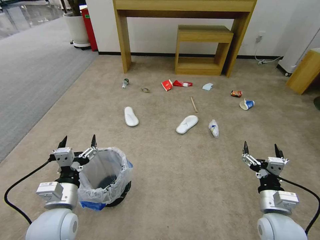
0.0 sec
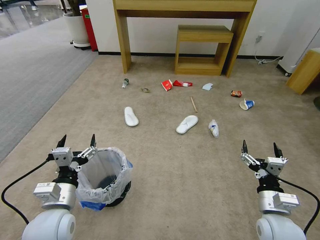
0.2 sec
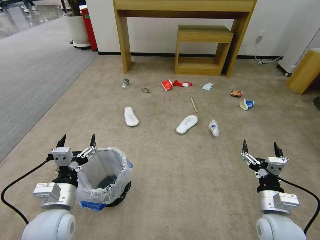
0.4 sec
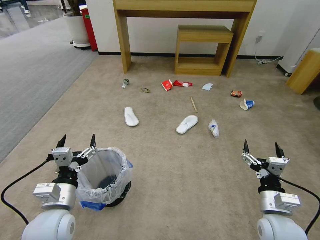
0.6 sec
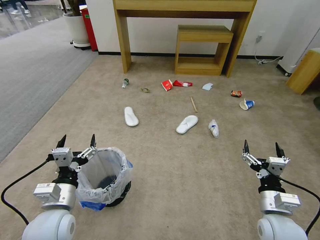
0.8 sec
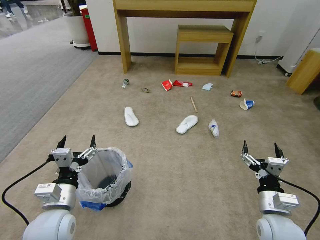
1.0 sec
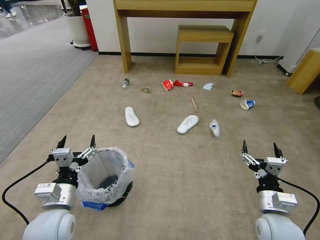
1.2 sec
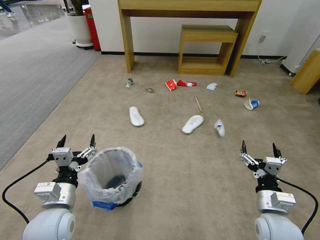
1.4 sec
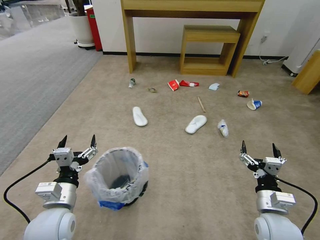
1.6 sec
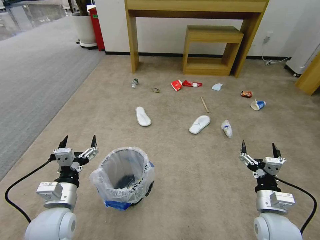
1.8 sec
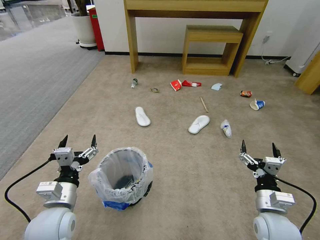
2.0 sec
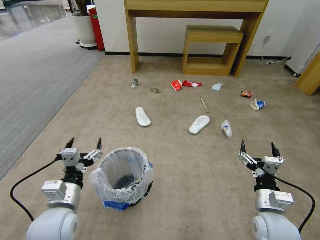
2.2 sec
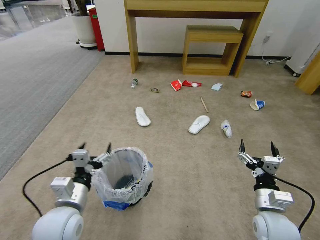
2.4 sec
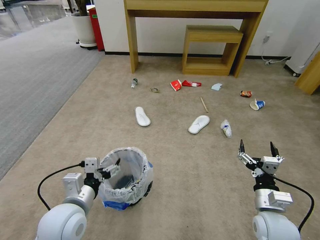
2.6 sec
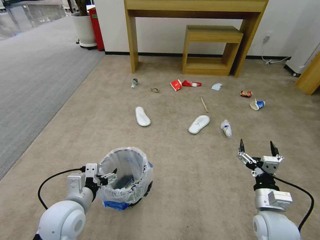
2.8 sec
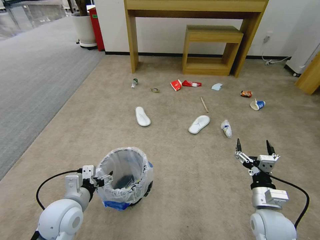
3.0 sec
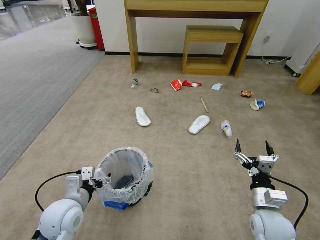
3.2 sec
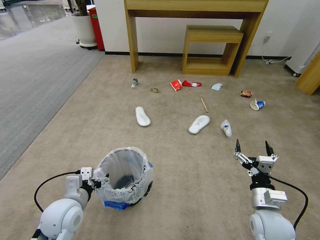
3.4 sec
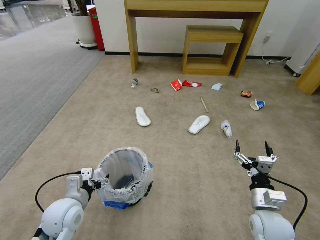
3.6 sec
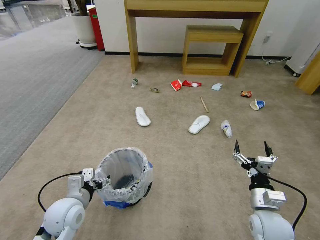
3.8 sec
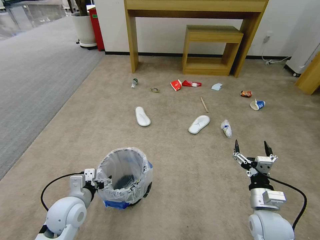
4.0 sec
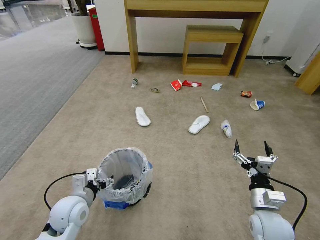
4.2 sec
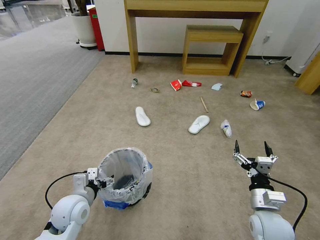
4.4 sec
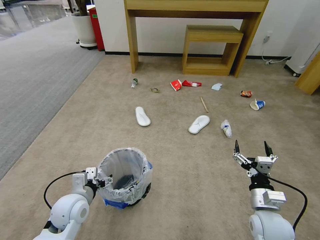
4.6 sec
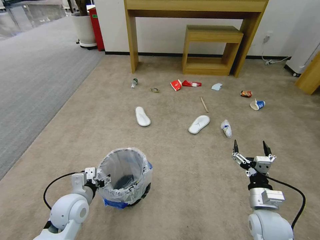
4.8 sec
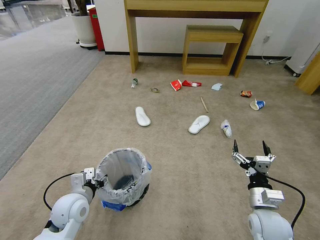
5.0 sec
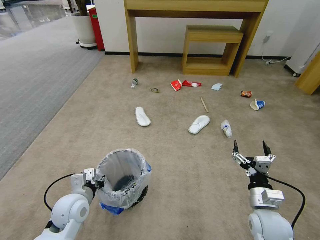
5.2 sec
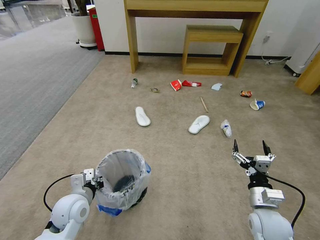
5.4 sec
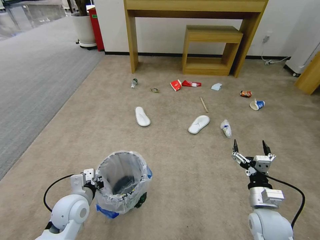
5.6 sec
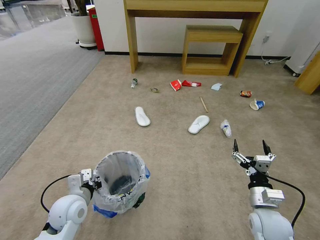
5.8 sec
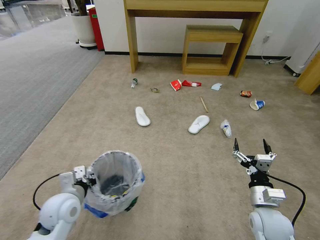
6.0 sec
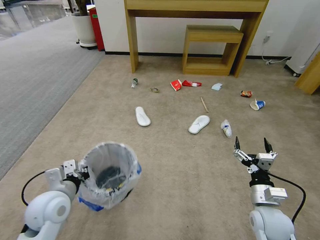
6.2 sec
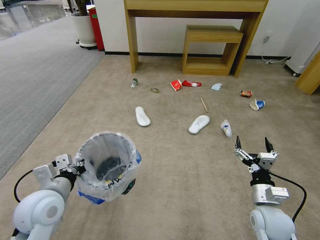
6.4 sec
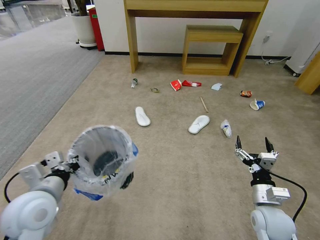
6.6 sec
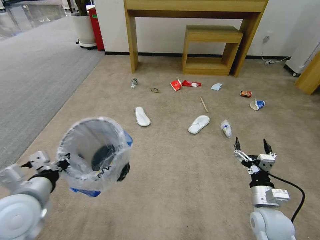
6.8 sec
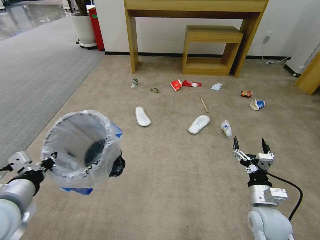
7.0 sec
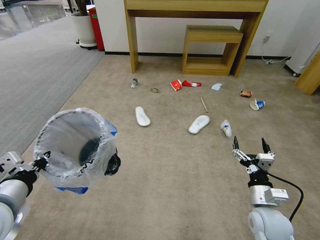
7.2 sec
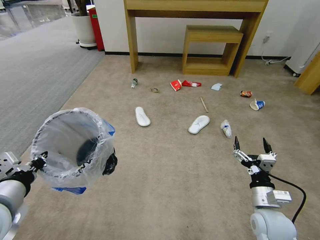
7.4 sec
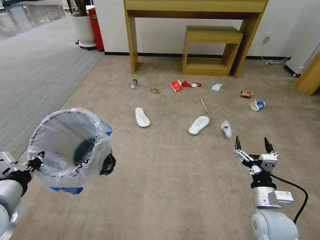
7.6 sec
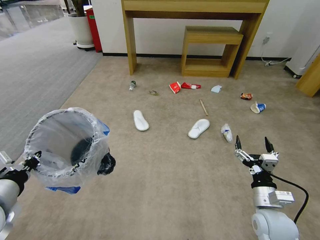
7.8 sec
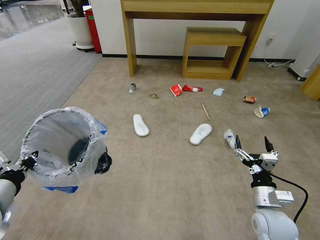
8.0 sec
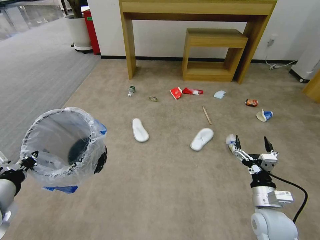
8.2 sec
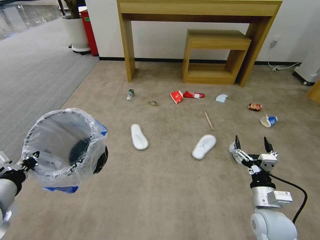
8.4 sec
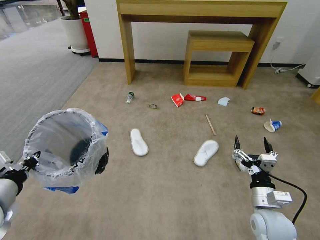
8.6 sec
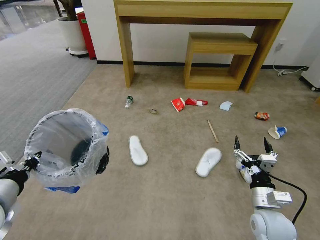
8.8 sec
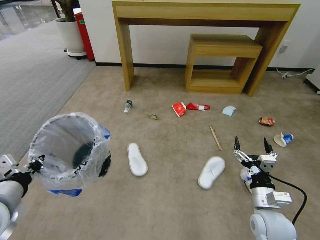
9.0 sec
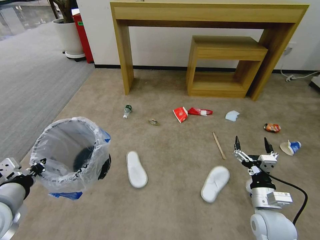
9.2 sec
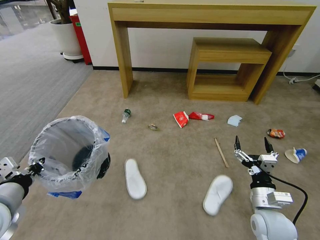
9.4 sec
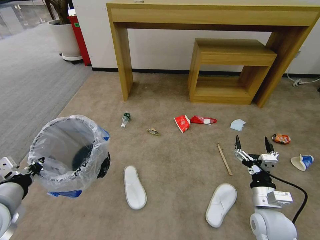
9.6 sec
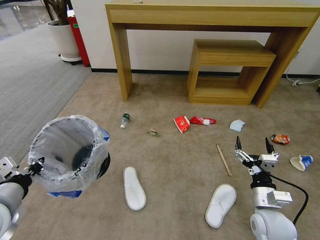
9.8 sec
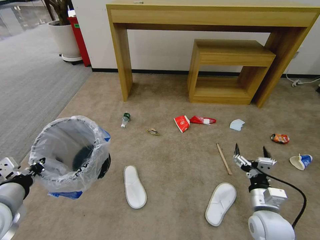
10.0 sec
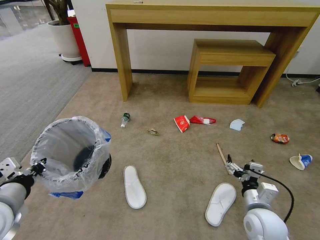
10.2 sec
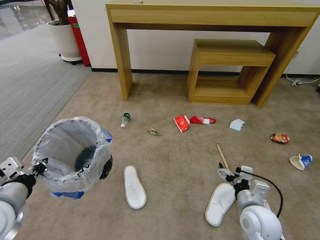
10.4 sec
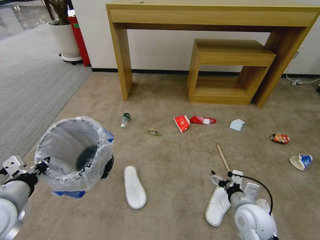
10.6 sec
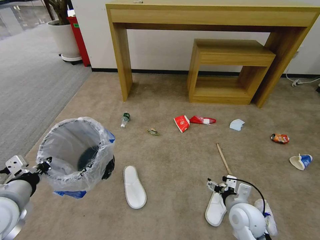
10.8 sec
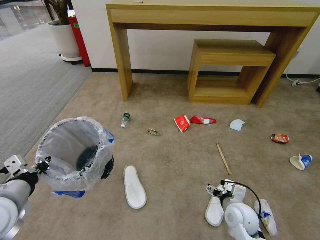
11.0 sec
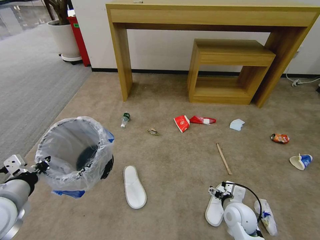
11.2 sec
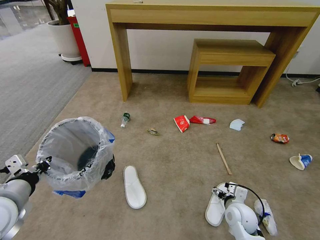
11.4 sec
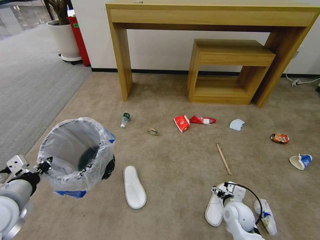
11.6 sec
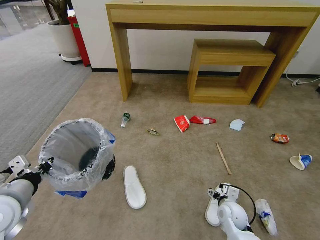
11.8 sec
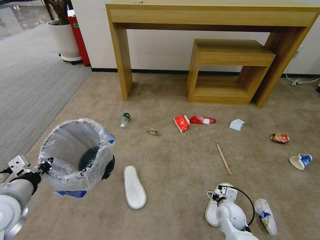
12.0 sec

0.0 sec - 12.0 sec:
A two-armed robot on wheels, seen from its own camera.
Task of the whole recording: Pick up the trash bin and place the garbage on the floor into it.
3.0 sec - 4.4 sec: The left gripper moves some 5 cm.
4.4 sec - 6.0 sec: The left gripper closes its fingers.
6.0 sec - 7.6 sec: The left gripper shifts some 20 cm upward, backward and to the left.
10.4 sec - 12.0 sec: The right gripper goes about 15 cm downward and forward.

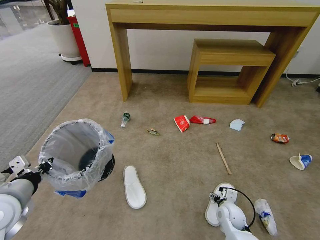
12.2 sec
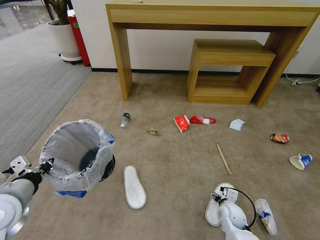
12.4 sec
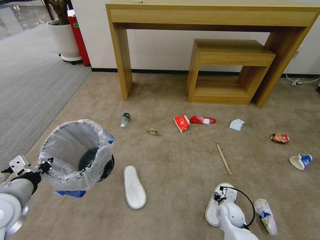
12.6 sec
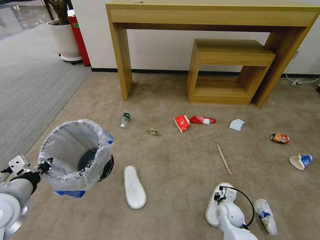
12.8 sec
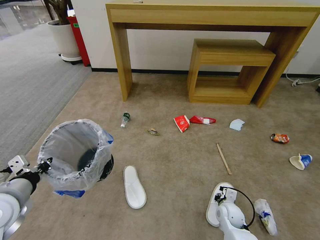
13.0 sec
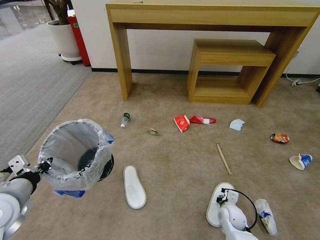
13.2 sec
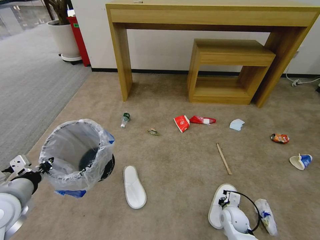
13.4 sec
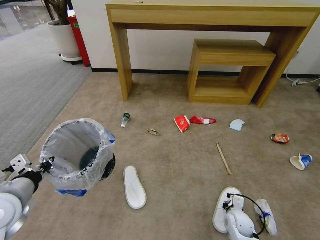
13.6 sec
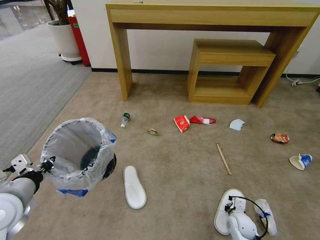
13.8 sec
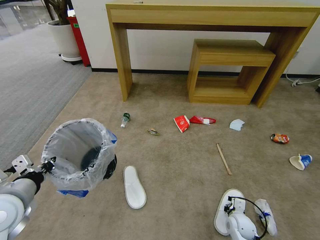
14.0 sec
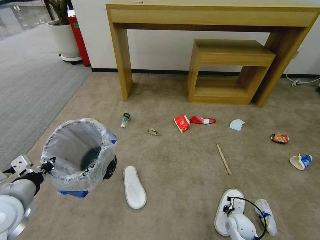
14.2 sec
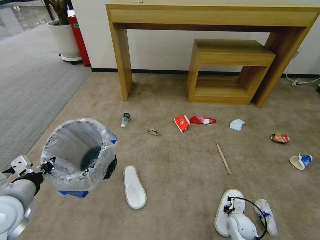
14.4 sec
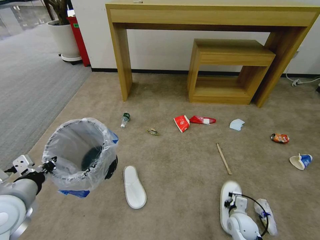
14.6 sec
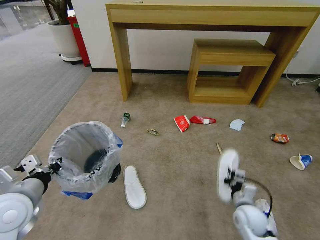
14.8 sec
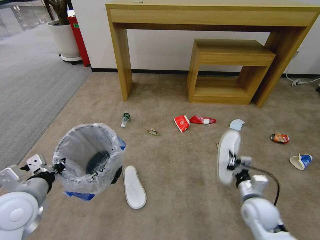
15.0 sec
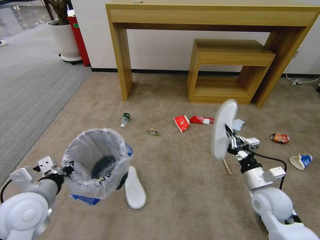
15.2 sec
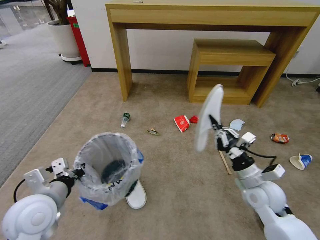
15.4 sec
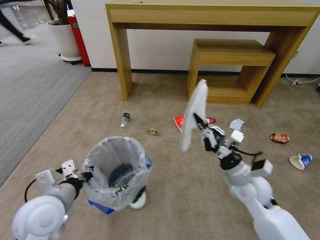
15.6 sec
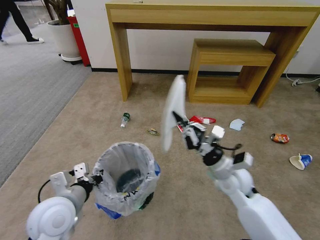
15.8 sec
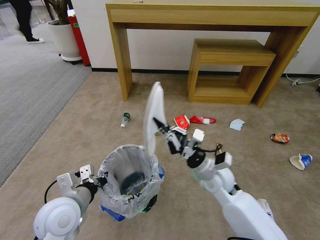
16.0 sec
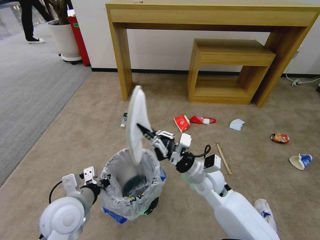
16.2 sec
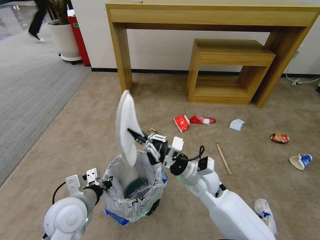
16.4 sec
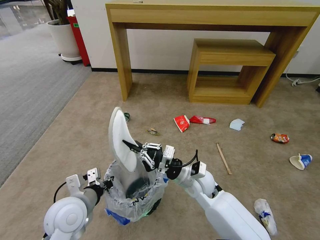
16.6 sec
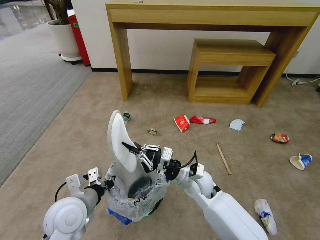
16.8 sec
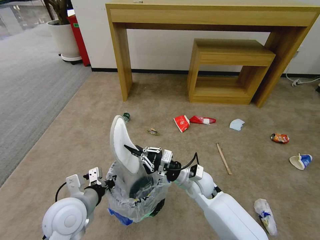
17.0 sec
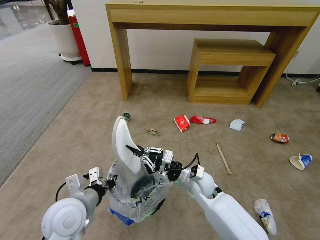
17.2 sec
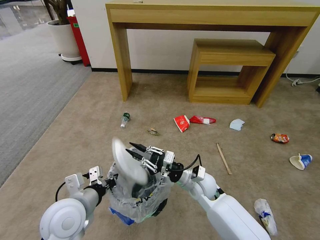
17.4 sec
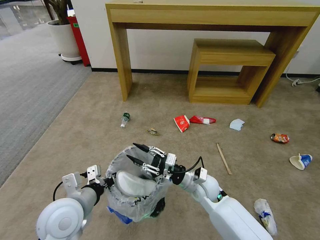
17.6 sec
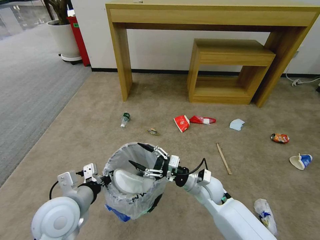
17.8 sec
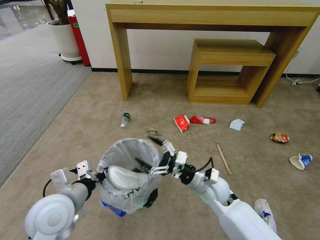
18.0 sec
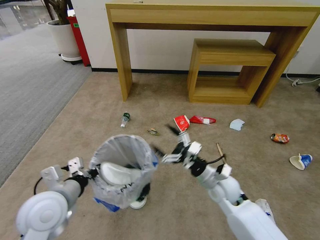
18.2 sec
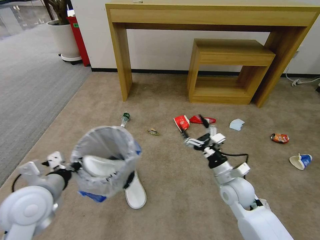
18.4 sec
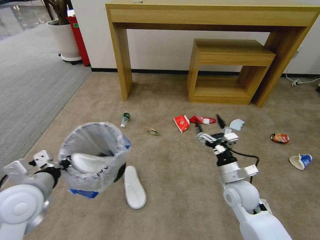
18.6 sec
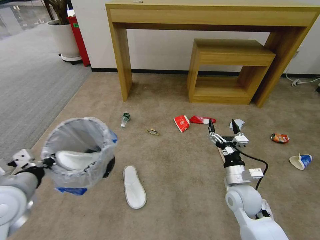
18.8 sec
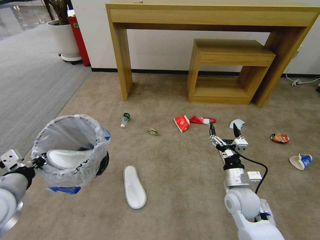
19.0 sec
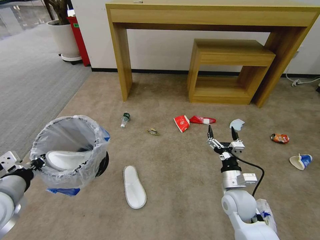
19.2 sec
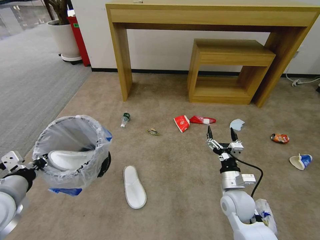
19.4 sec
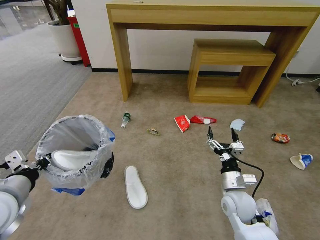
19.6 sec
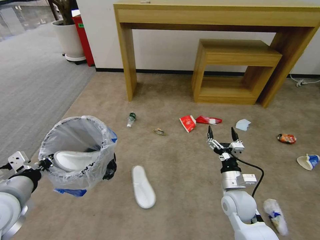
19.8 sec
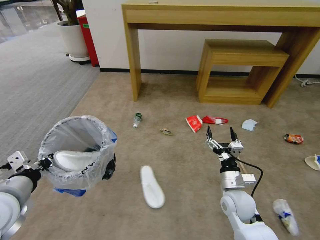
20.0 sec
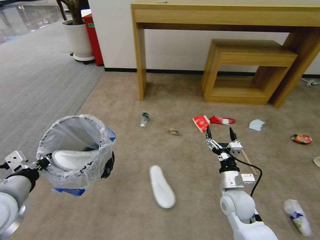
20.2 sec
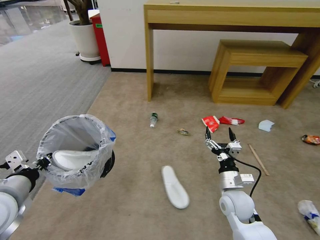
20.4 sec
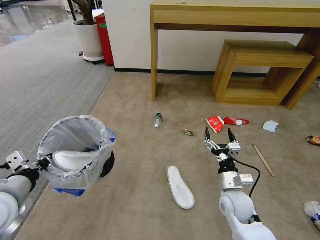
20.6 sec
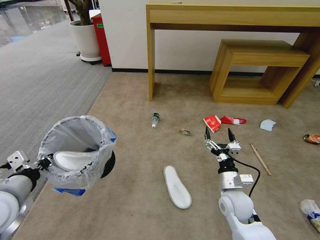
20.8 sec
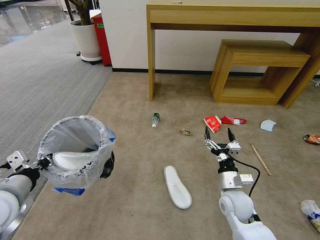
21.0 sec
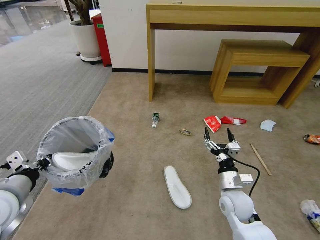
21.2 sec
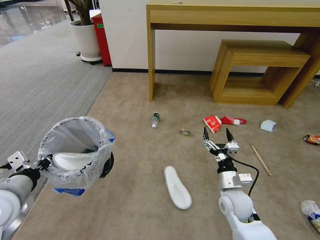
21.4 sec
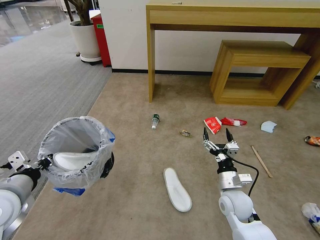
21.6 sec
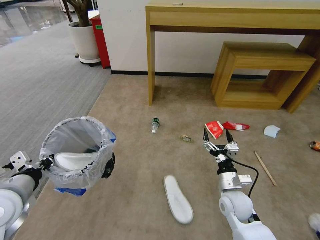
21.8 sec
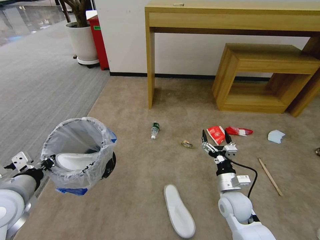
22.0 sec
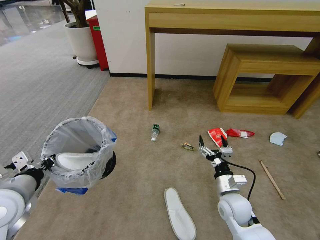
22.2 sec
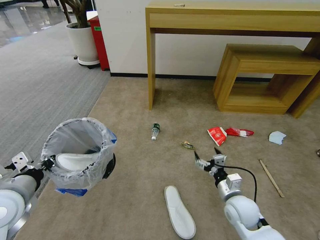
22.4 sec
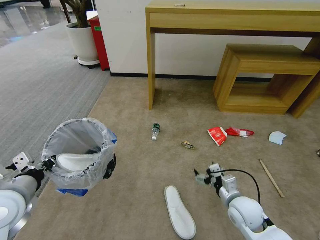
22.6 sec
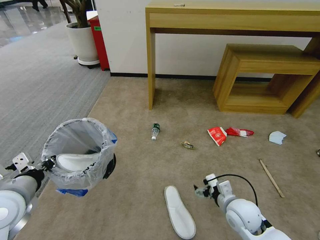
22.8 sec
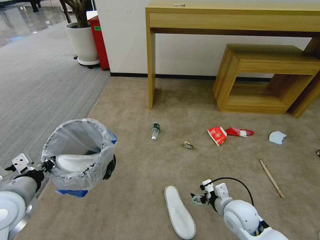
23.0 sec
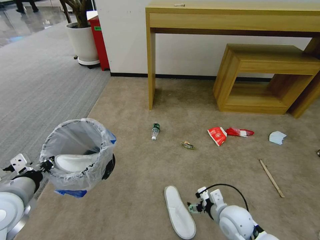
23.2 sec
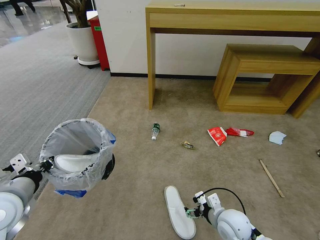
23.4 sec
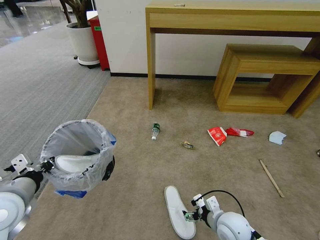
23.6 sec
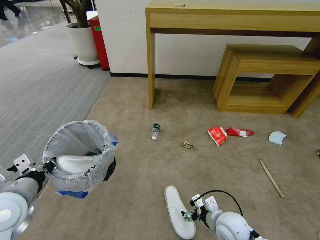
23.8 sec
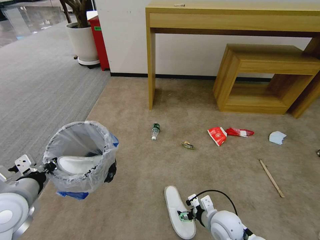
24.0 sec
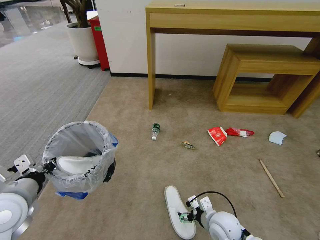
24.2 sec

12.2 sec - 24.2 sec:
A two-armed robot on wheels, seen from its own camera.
Task of the whole recording: Pick up the trash bin and place the garbage on the floor into it.
12.2 sec - 13.8 sec: The right gripper changes place by some 5 cm, and closes its fingers.
13.8 sec - 15.2 sec: The right gripper heads upward, covering about 20 cm.
15.2 sec - 16.6 sec: The left gripper moves to the right and downward, about 10 cm, while the right gripper heads to the left, covering about 20 cm.
16.6 sec - 18.2 sec: The right gripper shifts about 5 cm to the right, and opens.
18.2 sec - 19.8 sec: The right gripper is displaced to the right by approximately 5 cm, while the left gripper moves to the left and upward, some 10 cm.
22.6 sec - 24.2 sec: The right gripper moves to the left and downward, roughly 10 cm.
